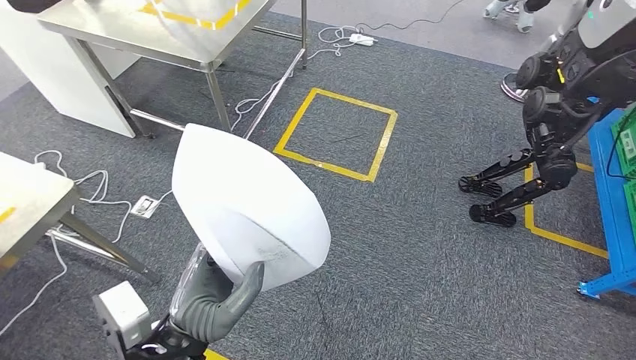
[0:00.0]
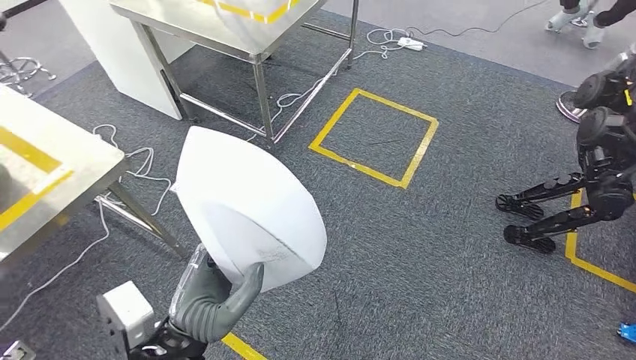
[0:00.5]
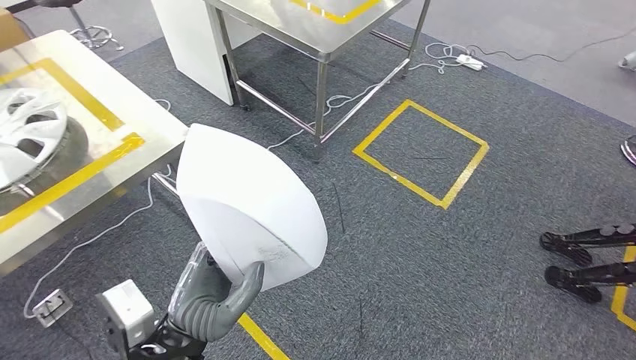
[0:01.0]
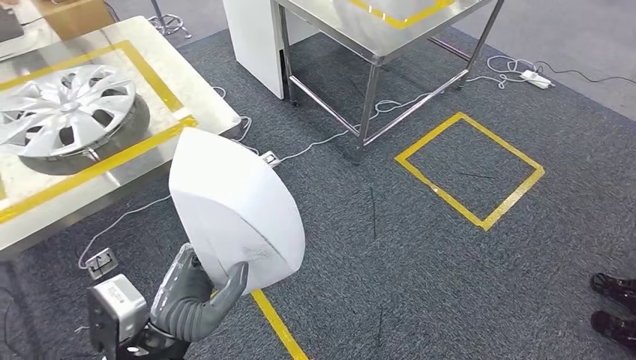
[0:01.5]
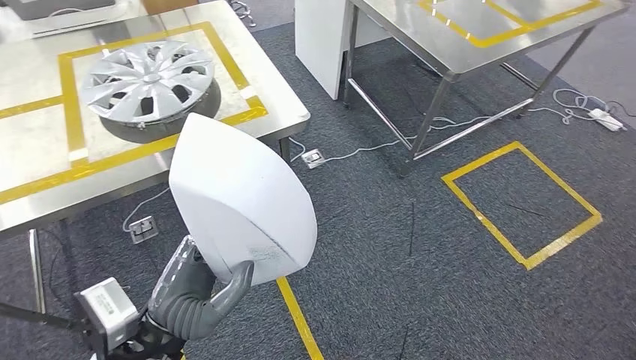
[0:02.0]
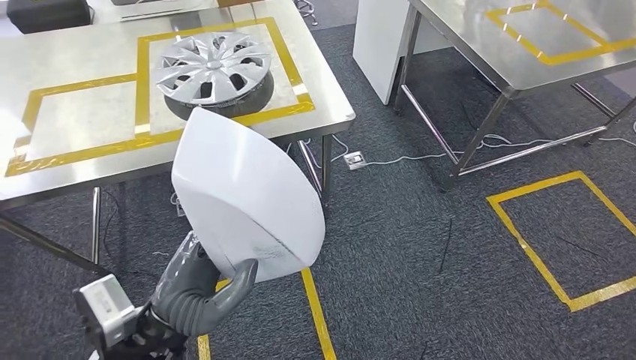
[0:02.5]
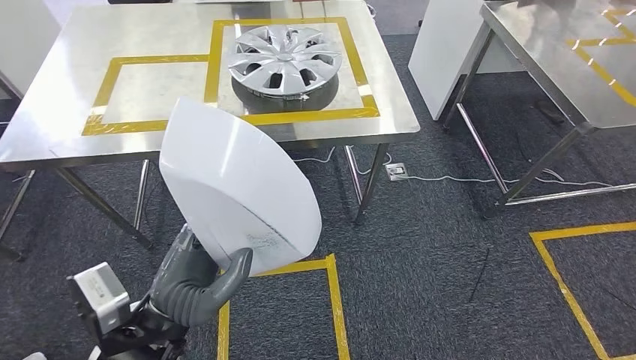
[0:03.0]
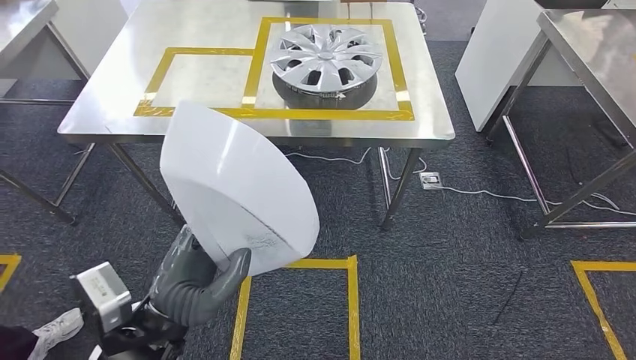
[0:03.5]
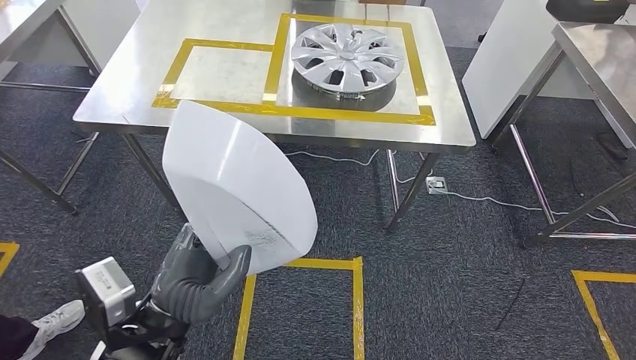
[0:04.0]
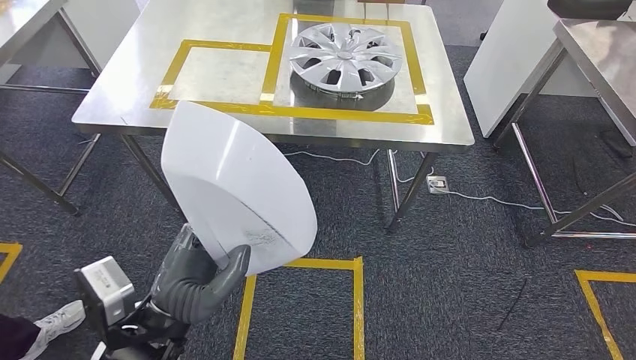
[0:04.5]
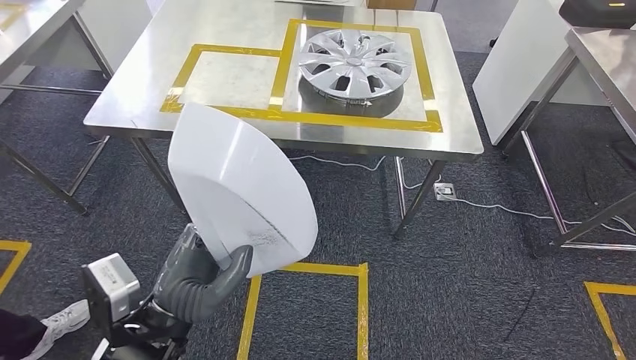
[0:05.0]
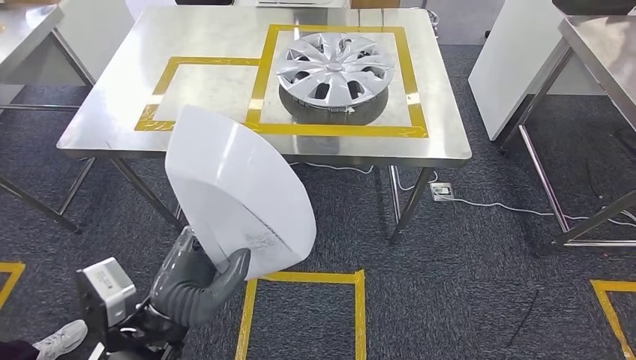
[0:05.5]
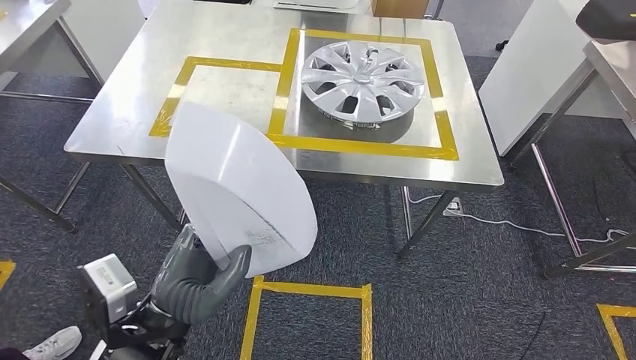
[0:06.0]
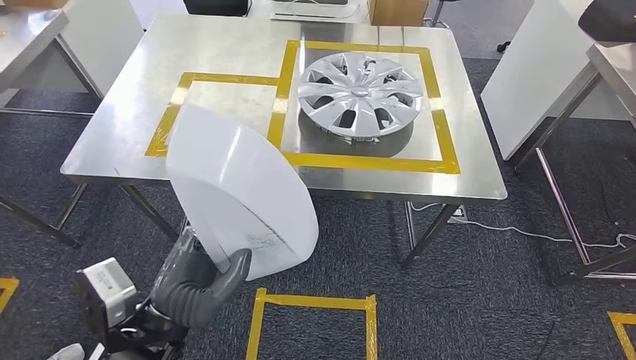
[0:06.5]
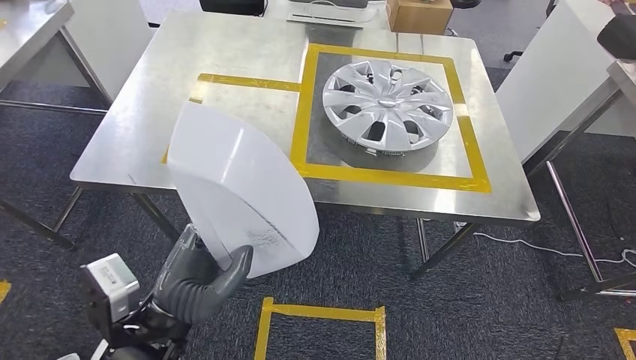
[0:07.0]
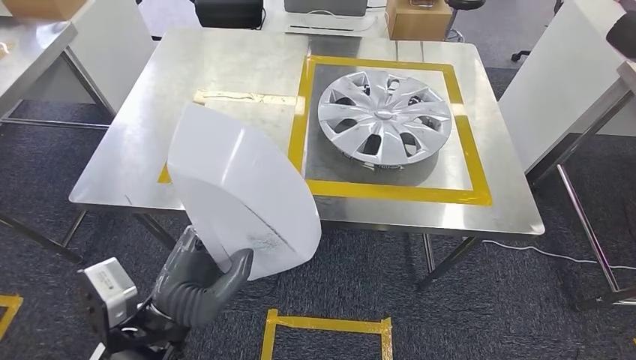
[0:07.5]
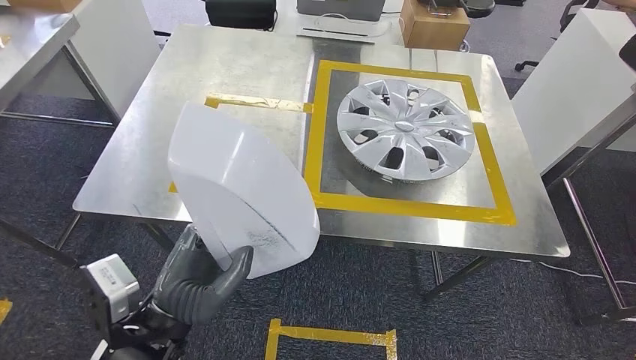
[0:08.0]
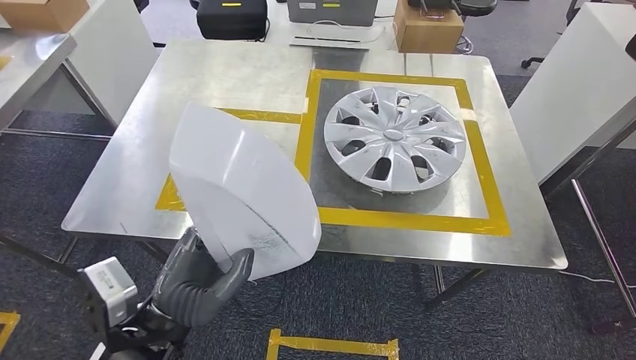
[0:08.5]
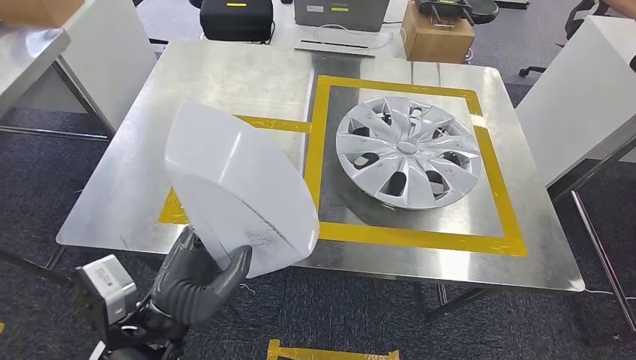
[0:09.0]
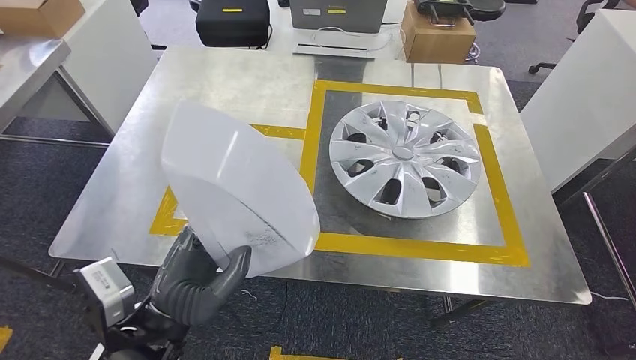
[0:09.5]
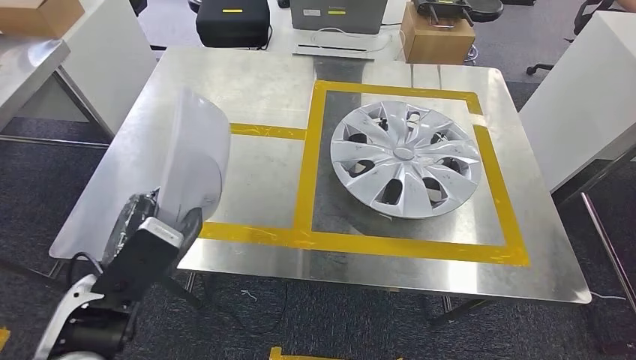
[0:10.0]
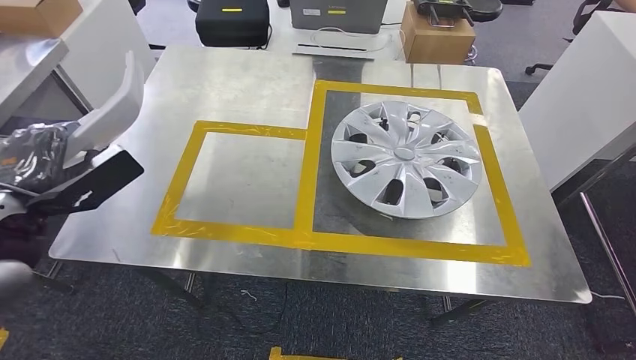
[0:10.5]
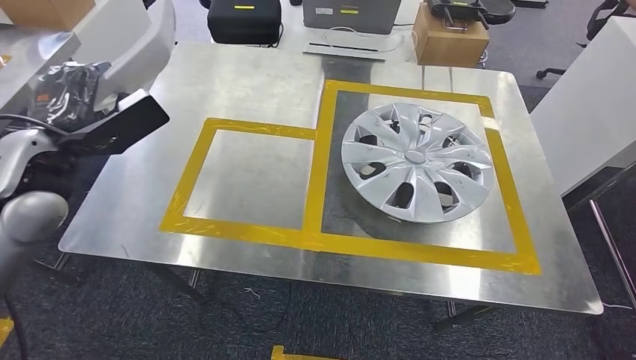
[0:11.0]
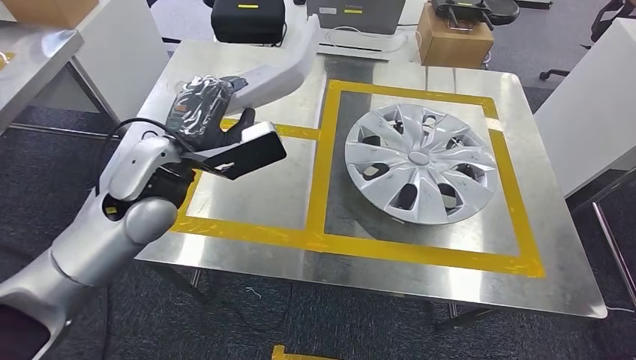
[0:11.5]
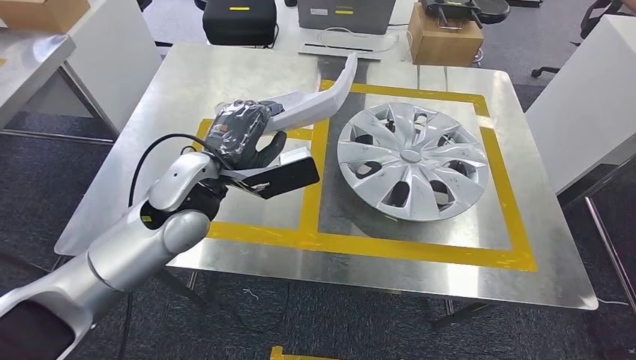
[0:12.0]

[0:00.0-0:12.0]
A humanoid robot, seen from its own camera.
Step, 0:00.0 to 0:08.5: Move the small parts to the workbench.

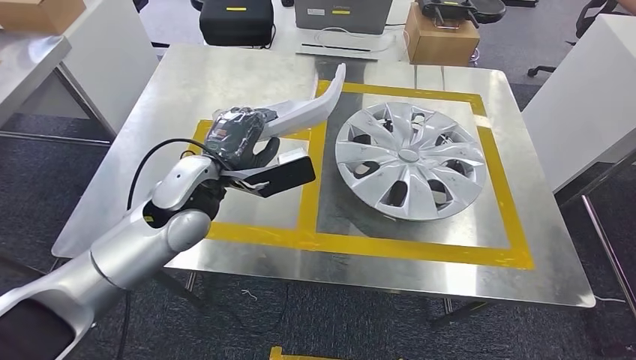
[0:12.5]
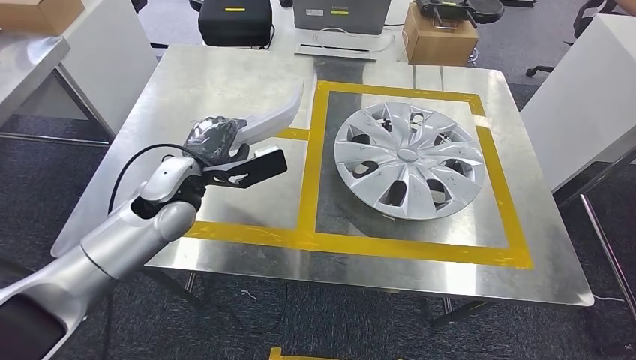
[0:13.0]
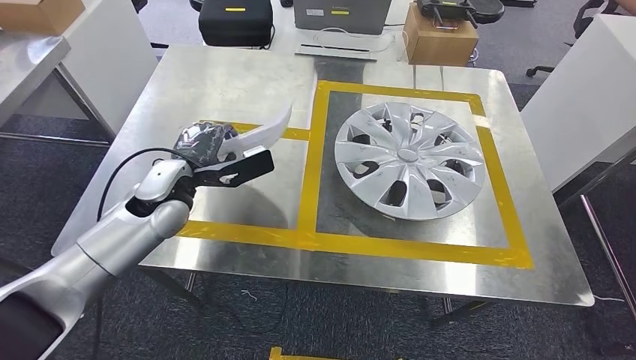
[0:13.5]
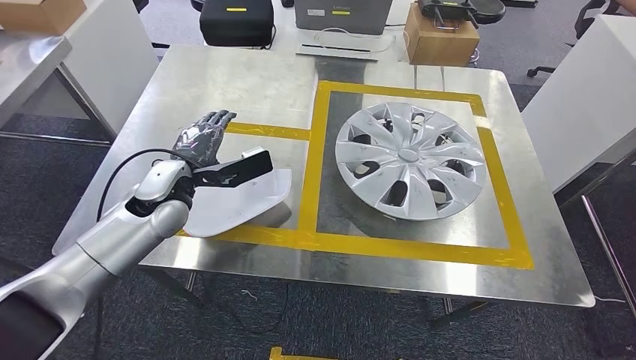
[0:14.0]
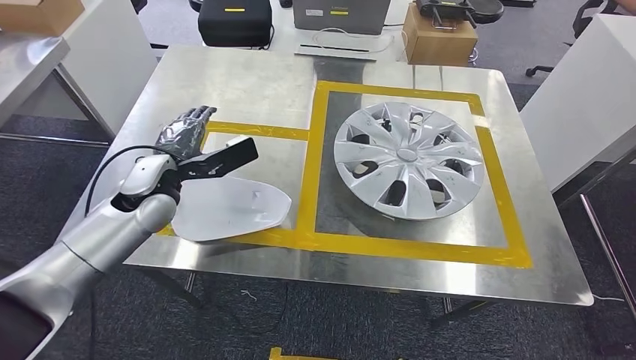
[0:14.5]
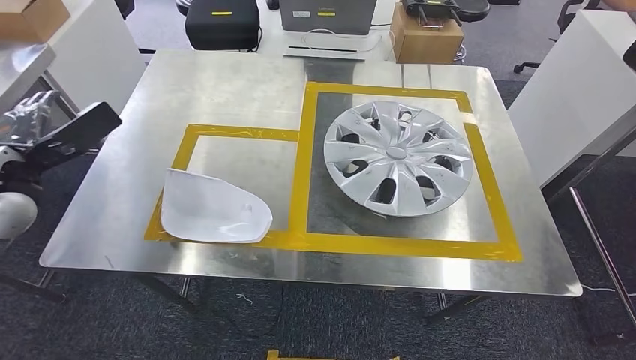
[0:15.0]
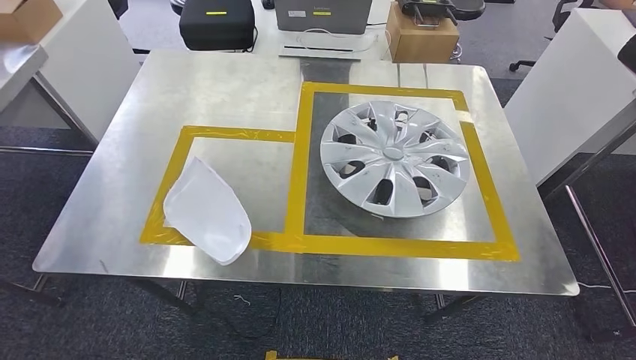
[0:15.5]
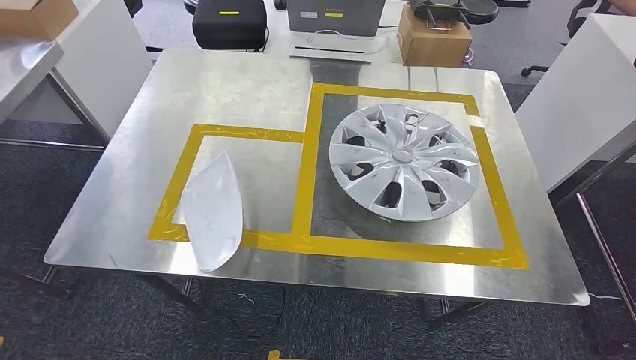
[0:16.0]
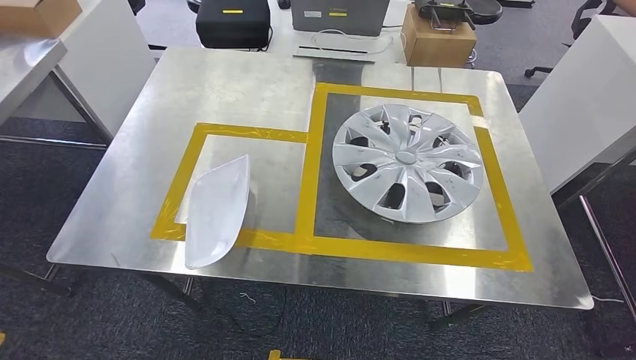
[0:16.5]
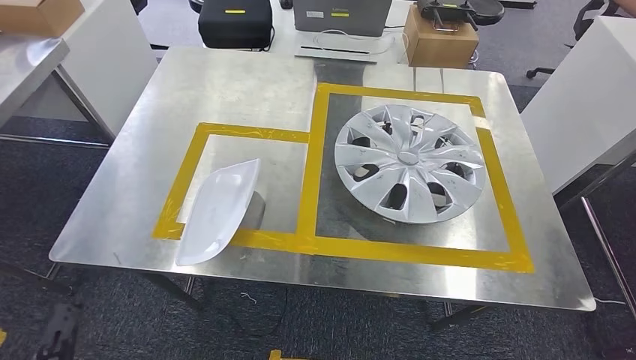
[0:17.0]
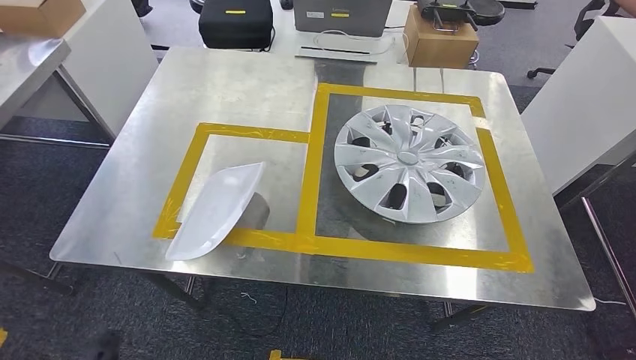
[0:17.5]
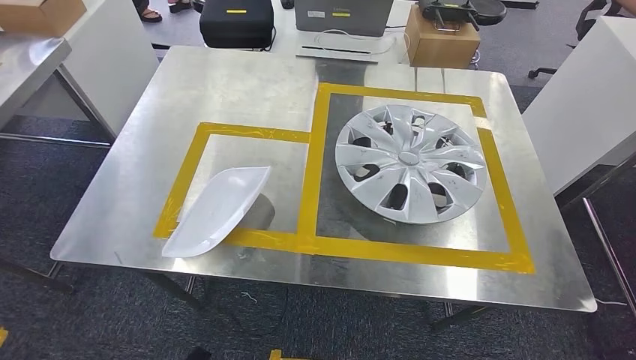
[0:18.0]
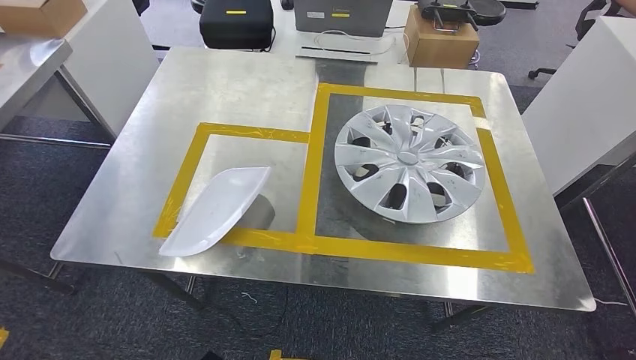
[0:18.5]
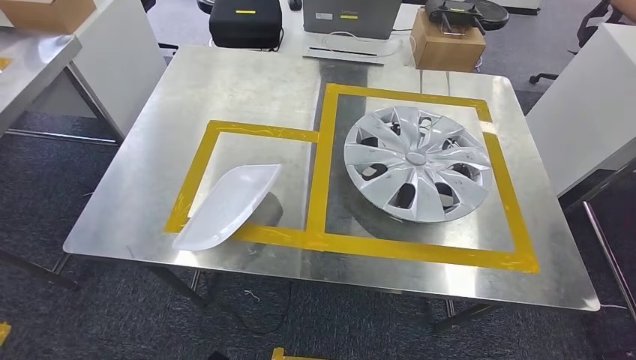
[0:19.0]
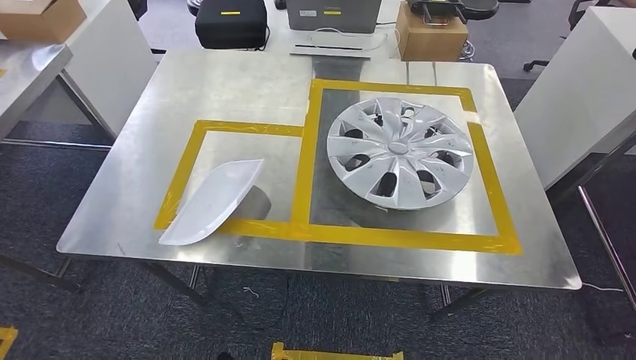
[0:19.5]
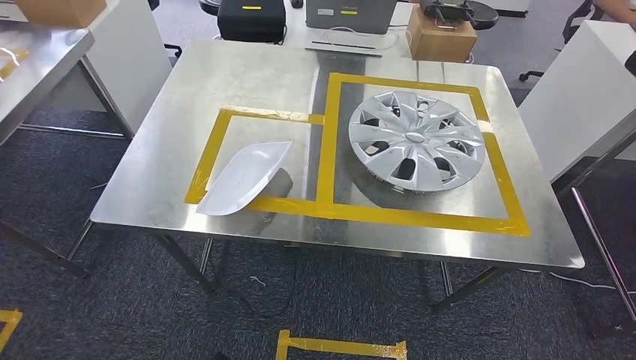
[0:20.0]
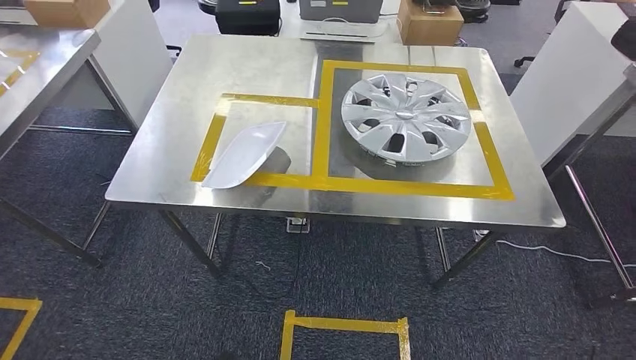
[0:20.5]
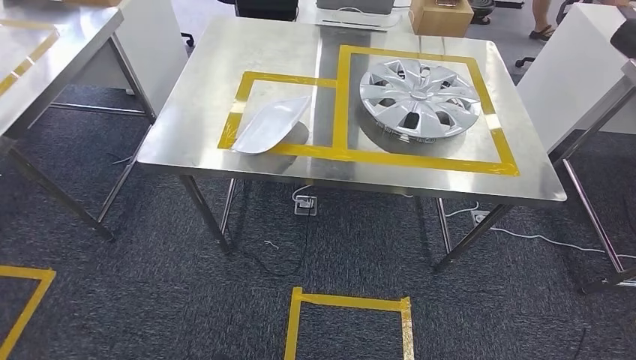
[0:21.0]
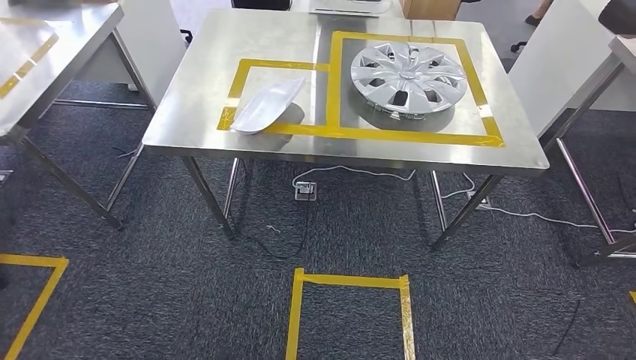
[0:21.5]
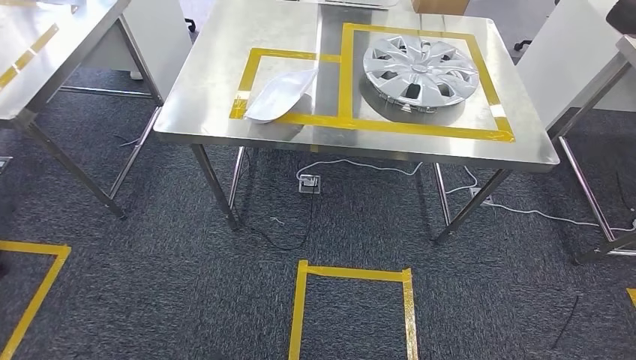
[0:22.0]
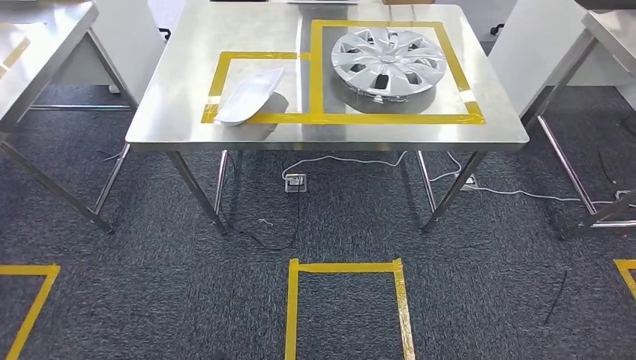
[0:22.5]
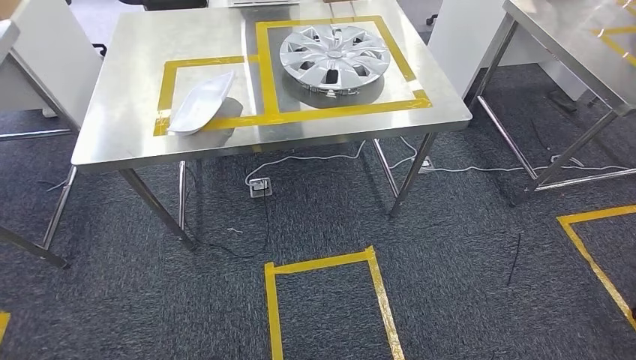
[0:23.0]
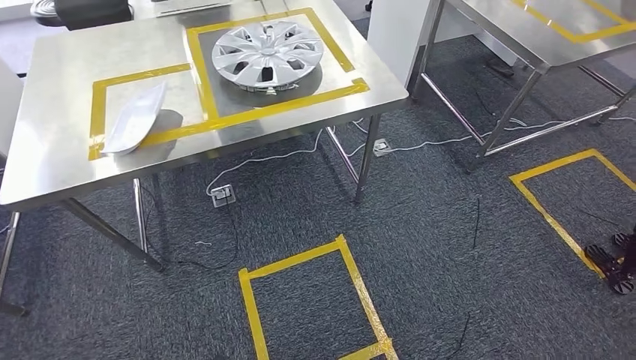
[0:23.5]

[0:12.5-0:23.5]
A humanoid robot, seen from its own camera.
Step, 0:12.5 to 0:15.5: Insert the small parts into the corresponding holes on the workbench.
0:12.5 to 0:14.5: The left hand is displaced to the left by roughly 10 cm.
0:16.0 to 0:18.0: The left hand is displaced downward and to the right by about 50 cm.
